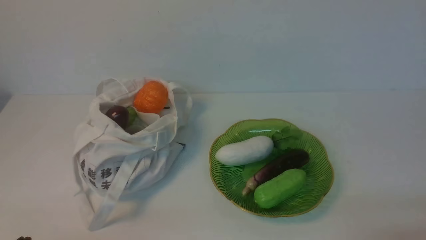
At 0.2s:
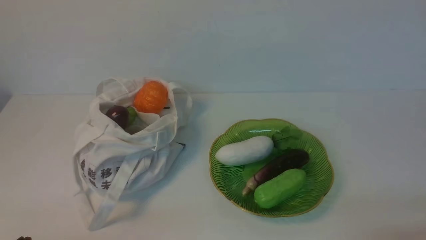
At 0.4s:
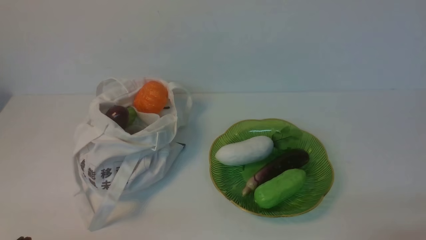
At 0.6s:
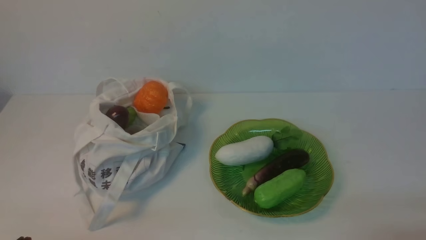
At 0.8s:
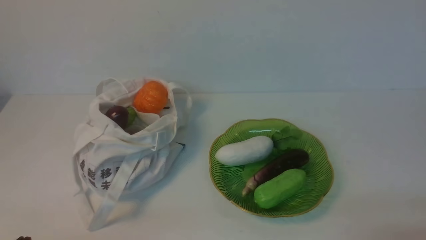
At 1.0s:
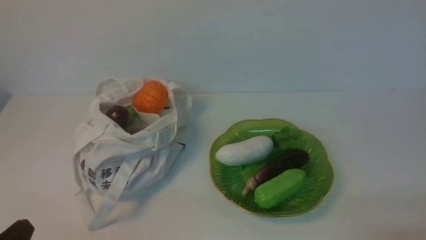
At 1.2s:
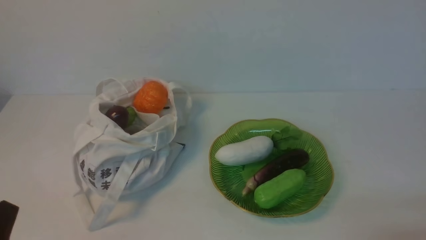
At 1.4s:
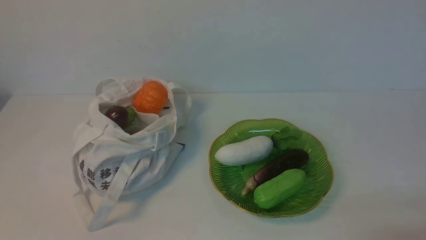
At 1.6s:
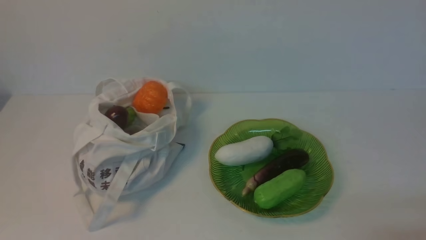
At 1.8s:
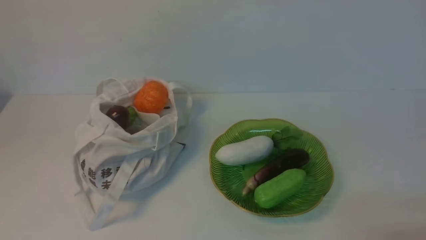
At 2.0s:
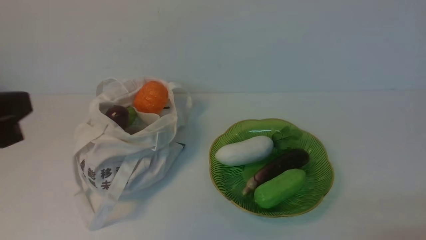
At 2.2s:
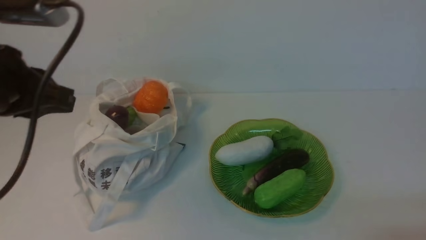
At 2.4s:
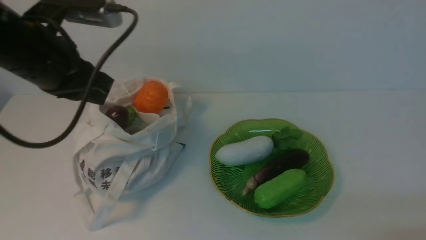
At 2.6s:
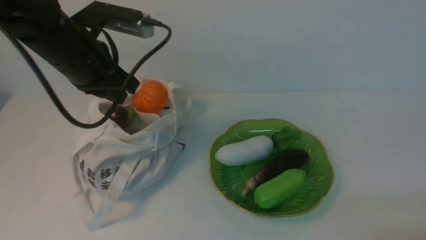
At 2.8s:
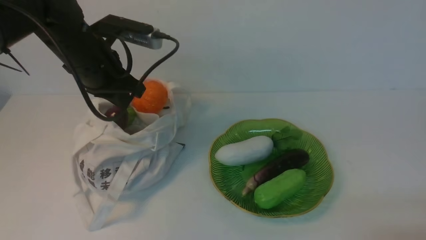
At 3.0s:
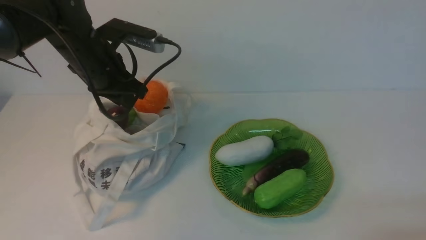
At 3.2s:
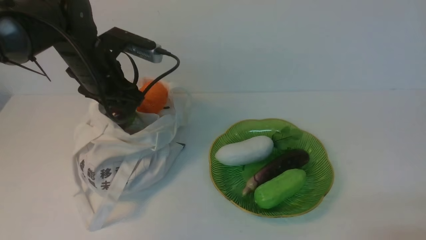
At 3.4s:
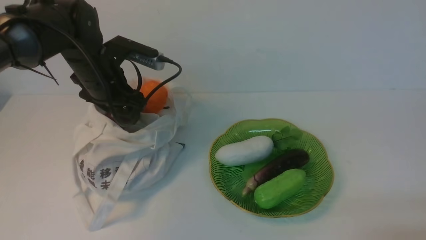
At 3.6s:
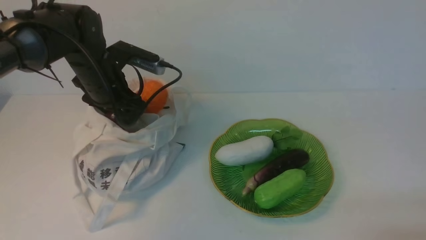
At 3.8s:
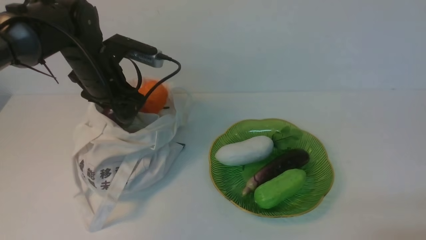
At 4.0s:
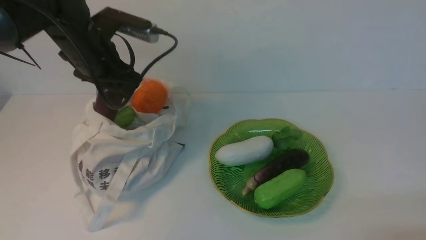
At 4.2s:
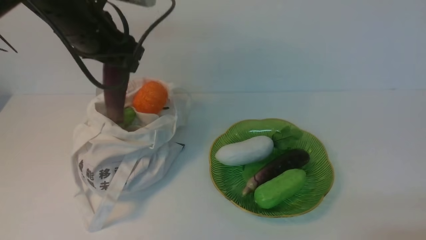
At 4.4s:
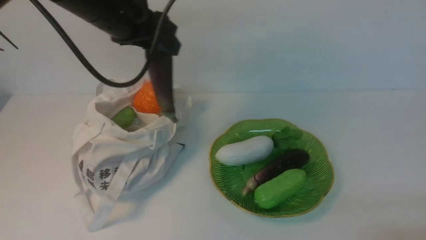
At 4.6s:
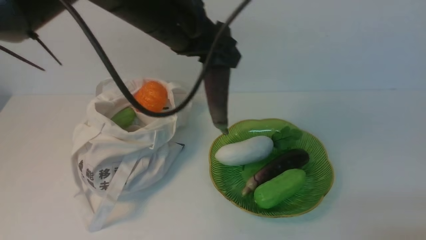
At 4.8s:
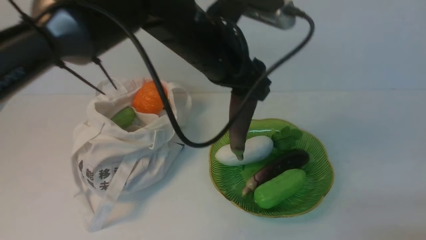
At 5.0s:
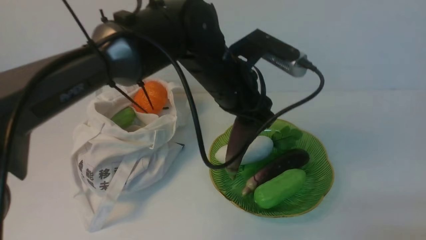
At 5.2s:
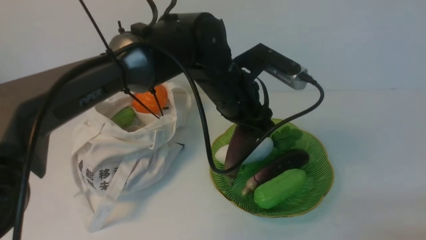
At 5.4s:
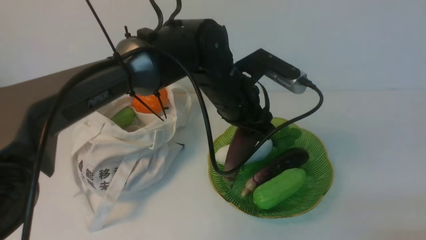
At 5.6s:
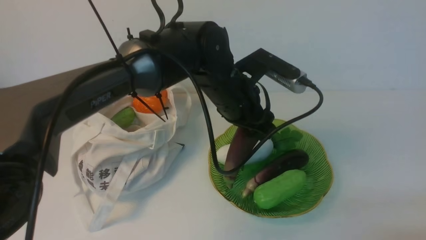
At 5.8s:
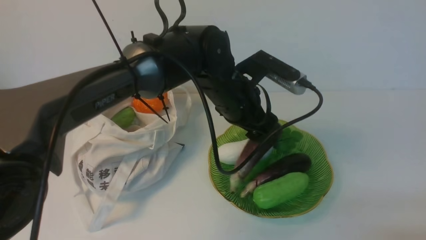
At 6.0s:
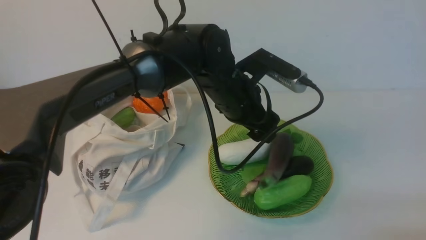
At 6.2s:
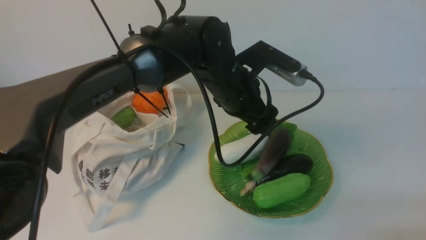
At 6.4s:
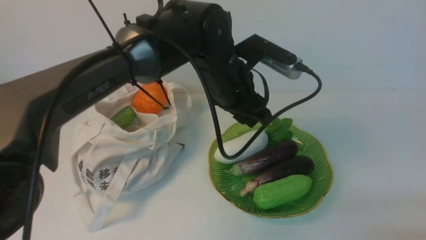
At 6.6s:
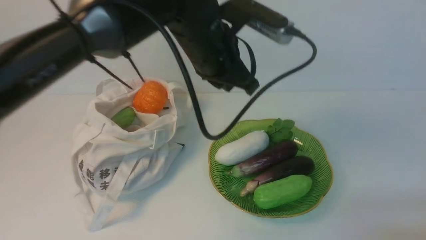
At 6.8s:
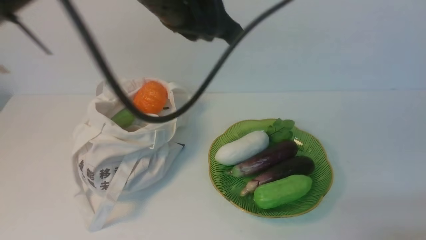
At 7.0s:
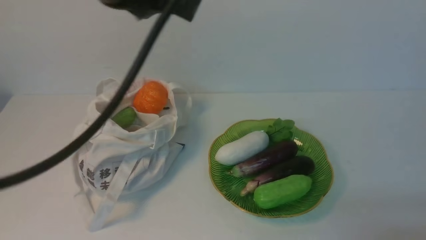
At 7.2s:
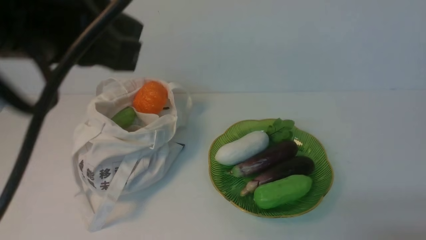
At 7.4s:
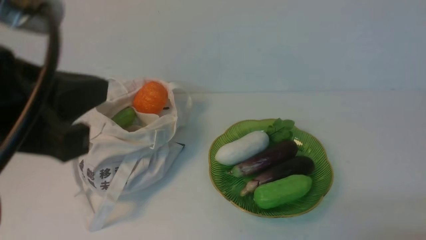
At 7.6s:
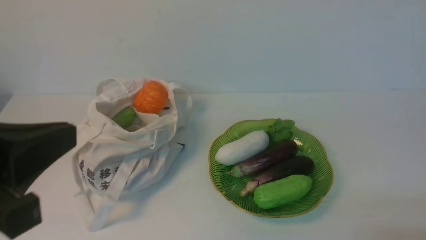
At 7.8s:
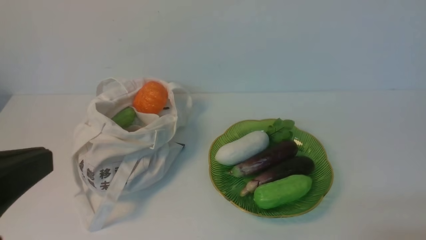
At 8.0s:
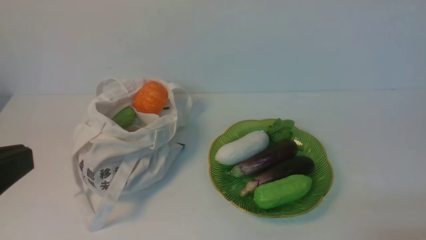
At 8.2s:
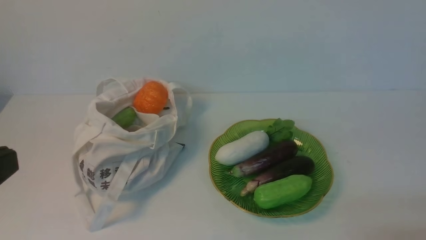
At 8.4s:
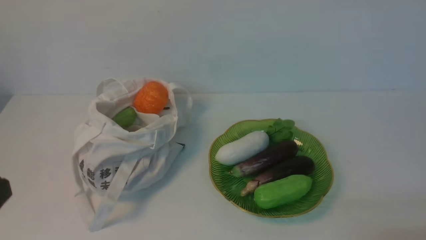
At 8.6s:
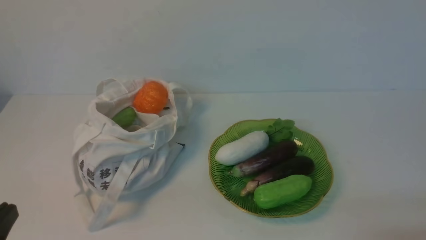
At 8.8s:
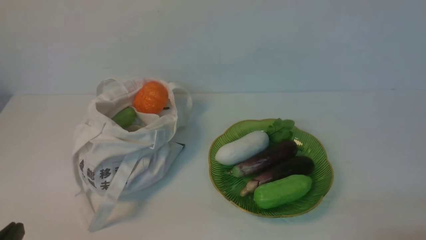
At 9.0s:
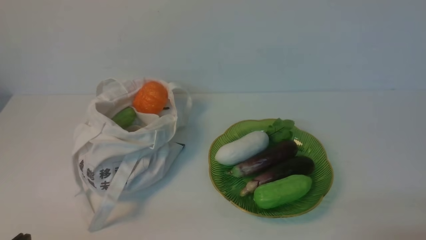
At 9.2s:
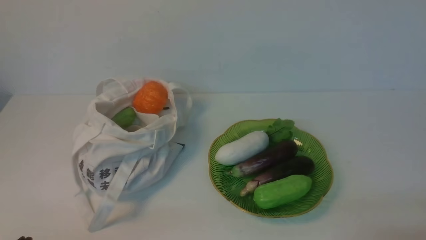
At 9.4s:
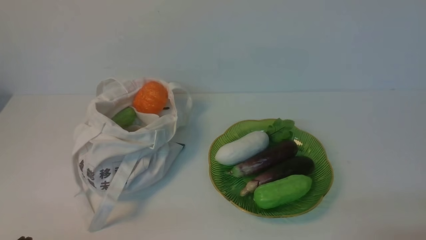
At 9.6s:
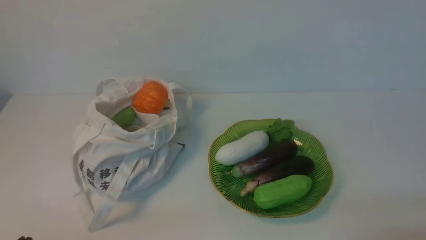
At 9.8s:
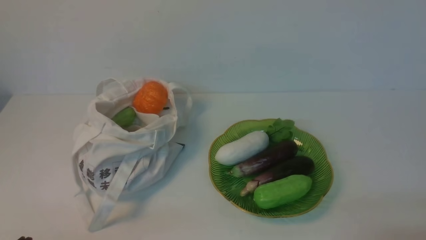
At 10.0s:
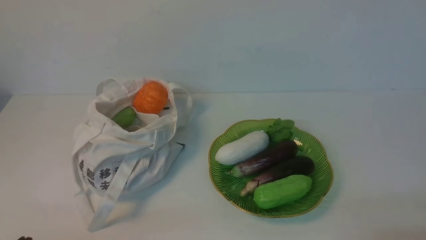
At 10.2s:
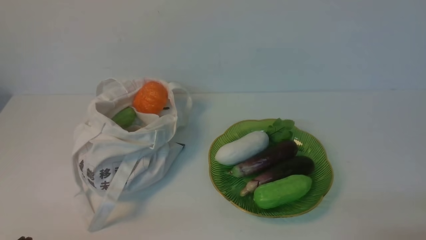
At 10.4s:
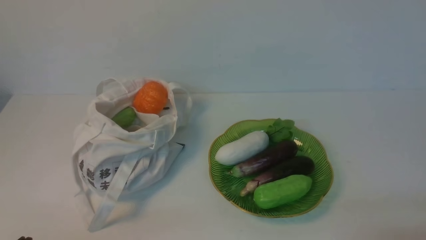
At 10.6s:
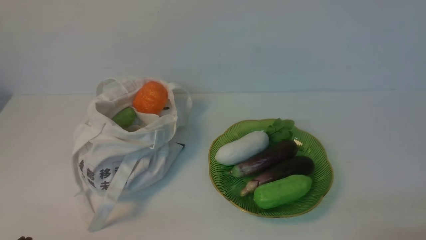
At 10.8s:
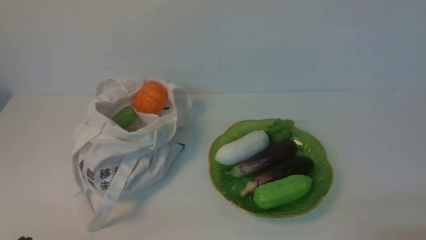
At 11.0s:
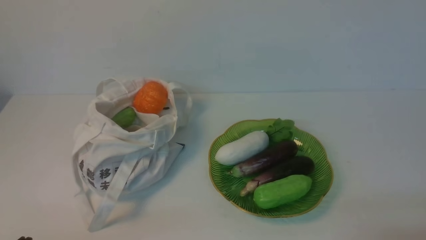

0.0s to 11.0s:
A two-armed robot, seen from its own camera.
Task of the whole recording: take vegetables from cloth bag on white table place on plate.
Step, 0.0s to 3.6s: Grasp the eggplant with left gripper.
Step, 3.8s to 6.4s: Place the eggplant on the plate with left gripper.
1.6s to 3.2s: The left gripper is displaced forward by some 35 cm, and opens up.
3.2s to 4.8s: The left gripper heads to the right and upward, covering about 15 cm.
4.8s to 6.2s: The left gripper moves downward and to the right, some 10 cm, and opens its fingers.
6.2s to 7.8s: The left gripper is displaced backward and to the left by about 35 cm, and closes its fingers.
7.8s to 9.4s: The left gripper is displaced downward by roughly 20 cm.
9.4s to 11.0s: Both grippers stay about where they are.
